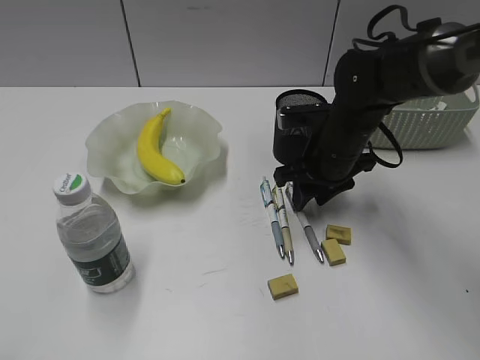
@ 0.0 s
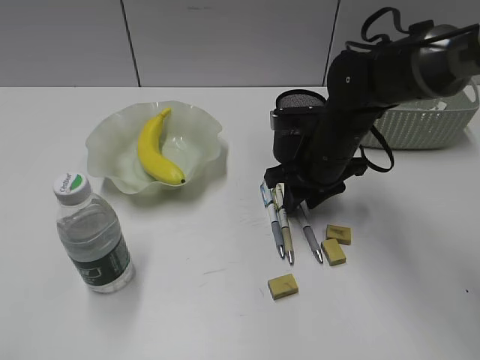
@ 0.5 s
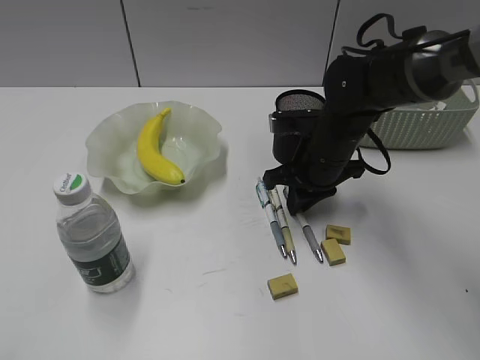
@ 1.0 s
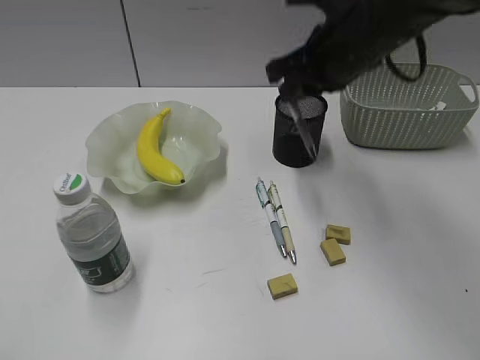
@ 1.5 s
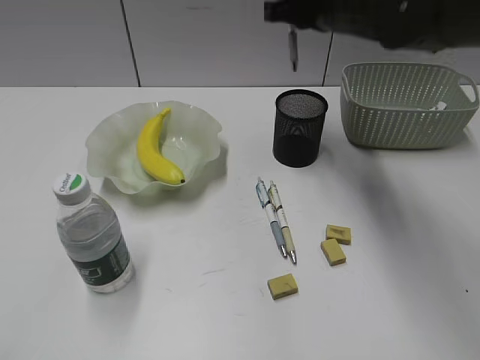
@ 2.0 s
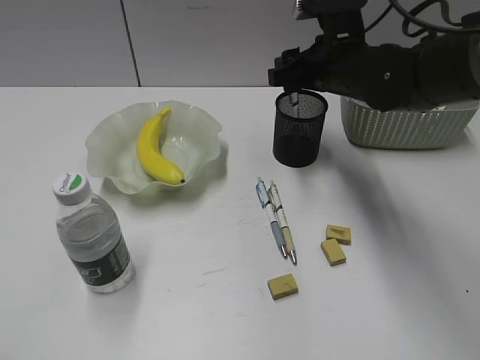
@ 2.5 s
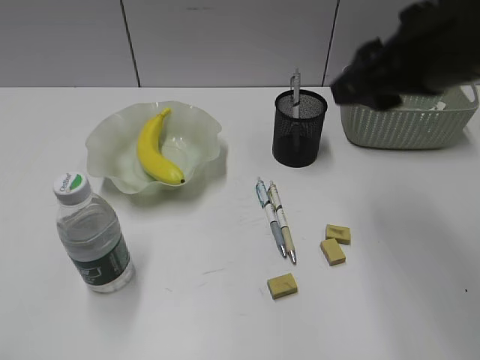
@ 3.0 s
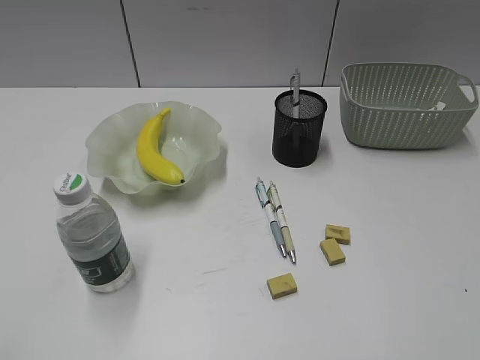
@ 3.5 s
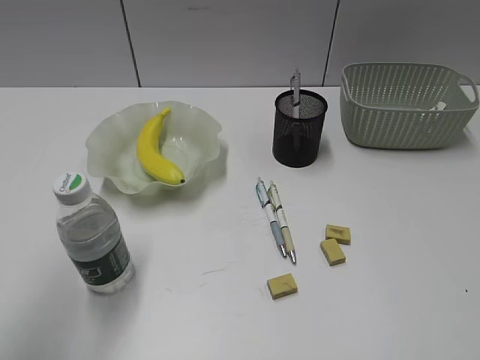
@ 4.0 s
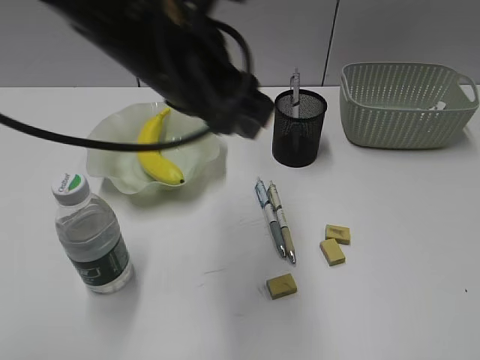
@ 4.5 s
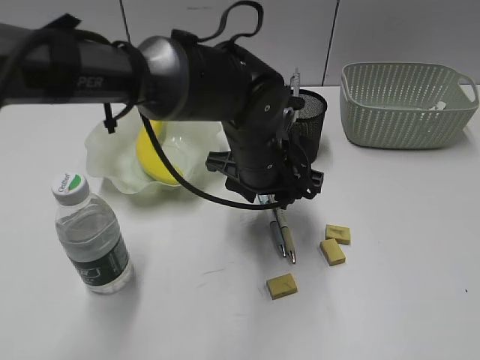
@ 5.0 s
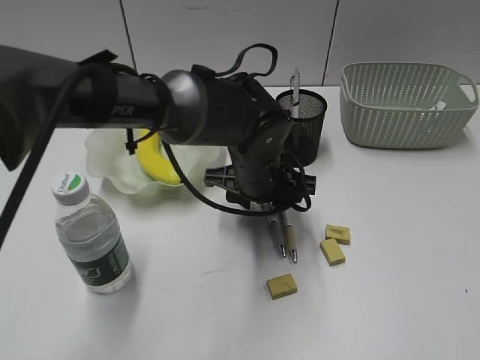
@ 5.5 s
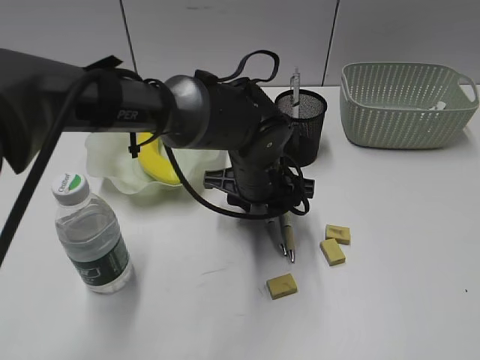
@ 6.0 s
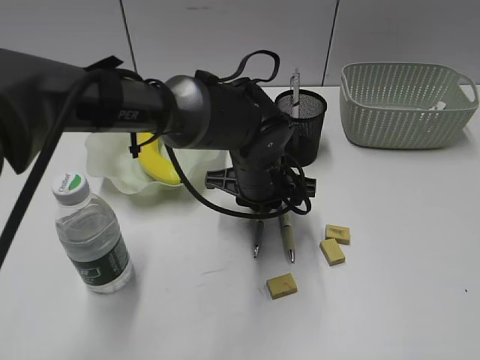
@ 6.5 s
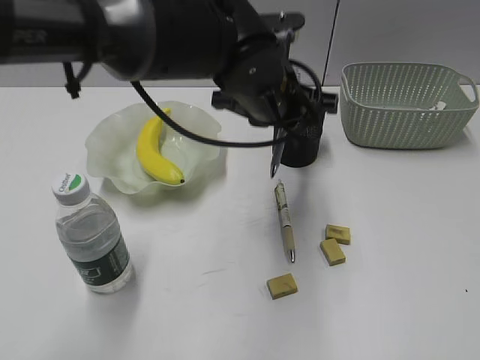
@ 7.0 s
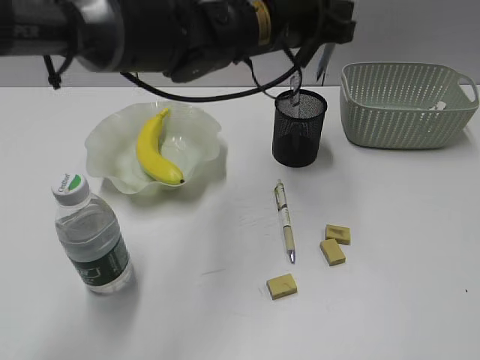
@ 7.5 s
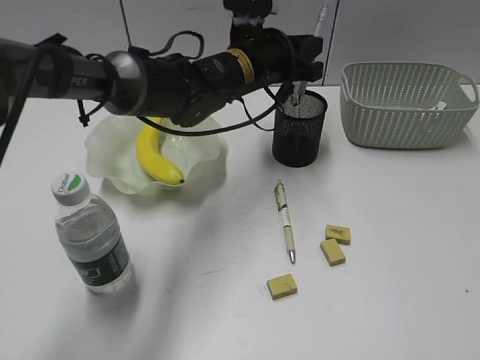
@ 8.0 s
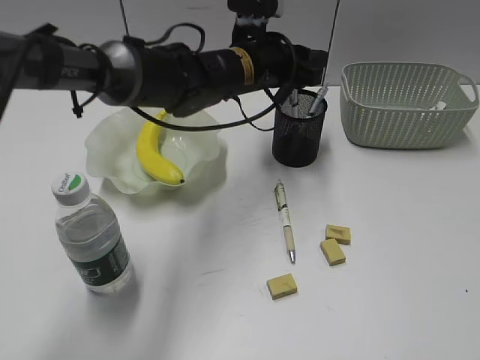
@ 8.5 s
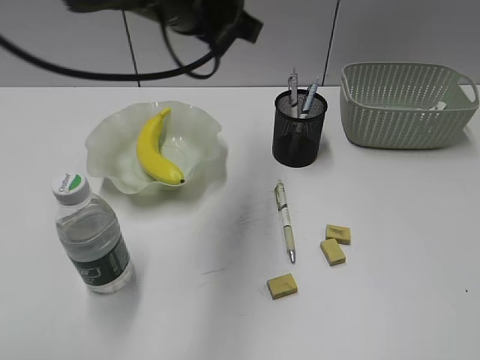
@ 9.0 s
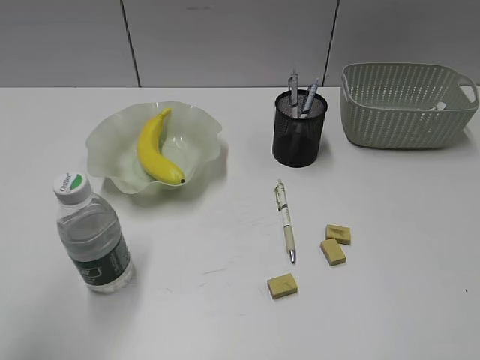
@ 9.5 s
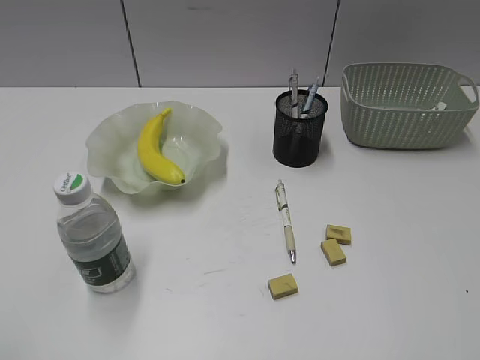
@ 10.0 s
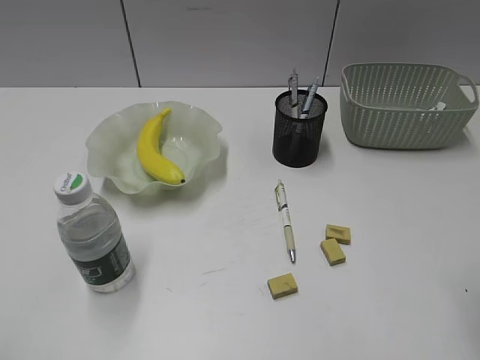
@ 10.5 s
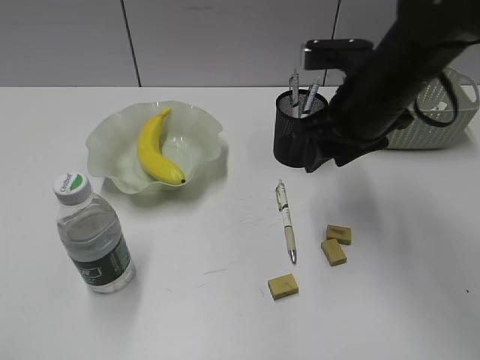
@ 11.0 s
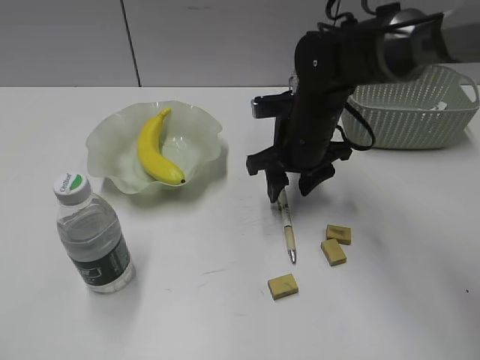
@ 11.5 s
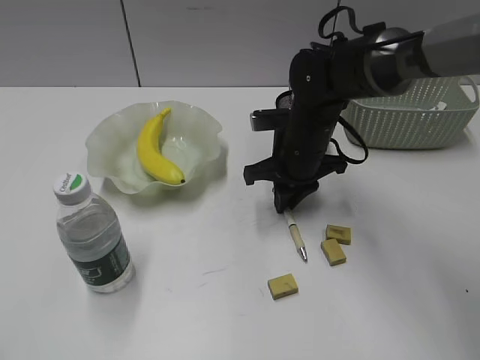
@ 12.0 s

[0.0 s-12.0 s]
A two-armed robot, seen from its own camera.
Step, 1.5 to 2.5 s: Place the gray pen in pen holder with right gripper.
Step, 3.0 to 6.5 s: Grasp the blue pen with left gripper.
Step, 7.0 to 8.0 s: Place the blue pen in pen holder with left gripper.
Step, 8.5 to 12.0 s: Grasp the yellow pen with right gripper.
0.0 to 2.0 s: The right gripper goes some 15 cm upward, and closes up.
2.0 to 4.0 s: The right gripper heads backward and to the right, covering about 50 cm, and opens up. Meanwhile the left gripper moves forward and upward, approximately 15 cm.
4.0 to 6.0 s: The left gripper heads to the right, downward and forward, covering about 40 cm.
6.0 to 8.0 s: The left gripper heads forward and upward, covering about 10 cm, and closes its fingers.
8.0 to 10.0 s: The left gripper travels backward and to the left by some 50 cm, and opens its fingers.
10.0 to 12.0 s: The right gripper moves forward, to the left and downward, some 50 cm, and opens, then closes once more.

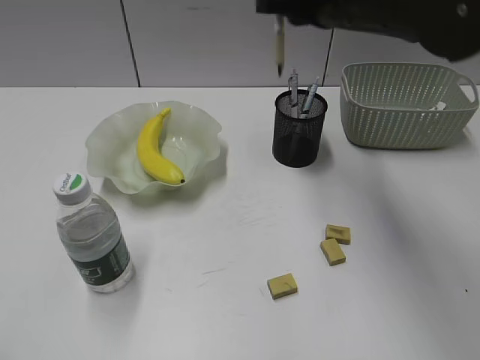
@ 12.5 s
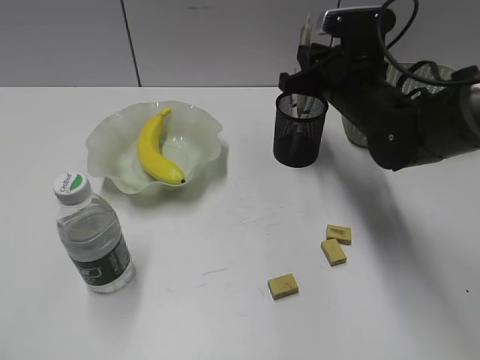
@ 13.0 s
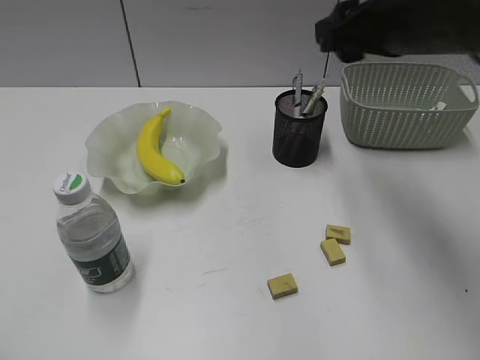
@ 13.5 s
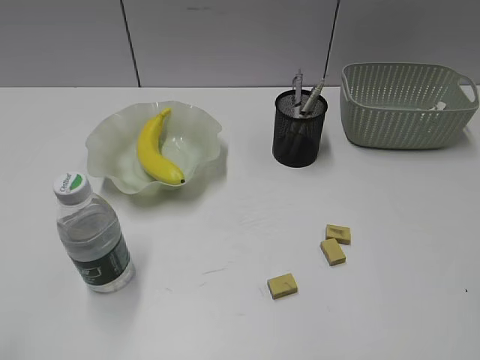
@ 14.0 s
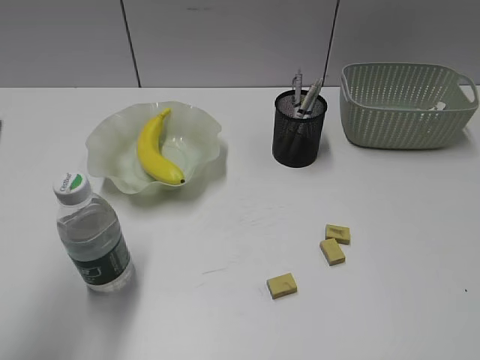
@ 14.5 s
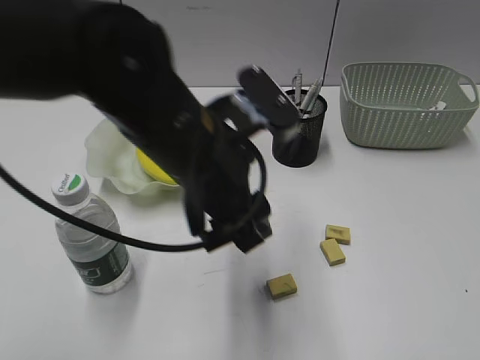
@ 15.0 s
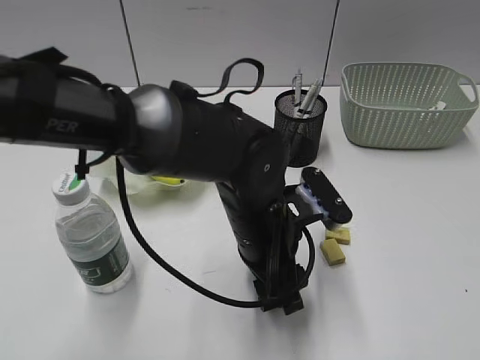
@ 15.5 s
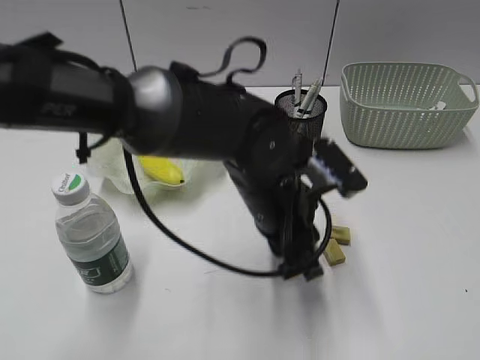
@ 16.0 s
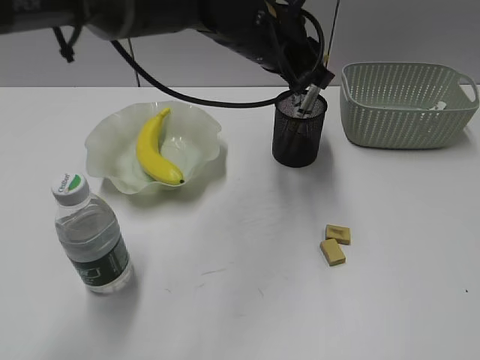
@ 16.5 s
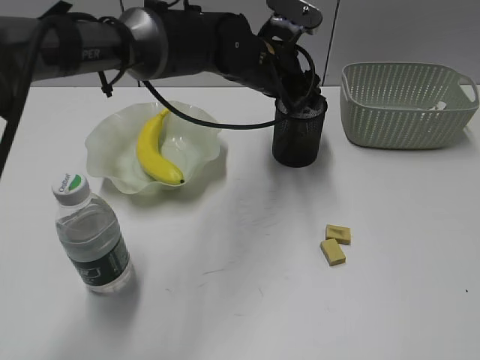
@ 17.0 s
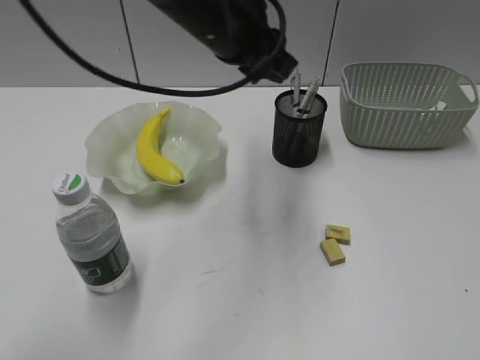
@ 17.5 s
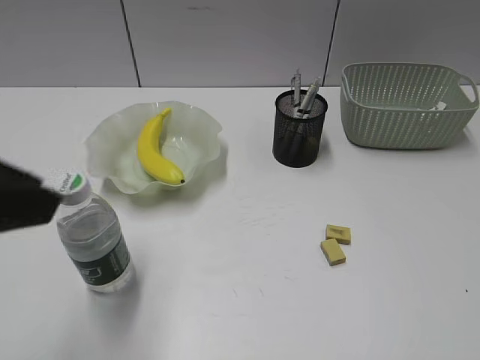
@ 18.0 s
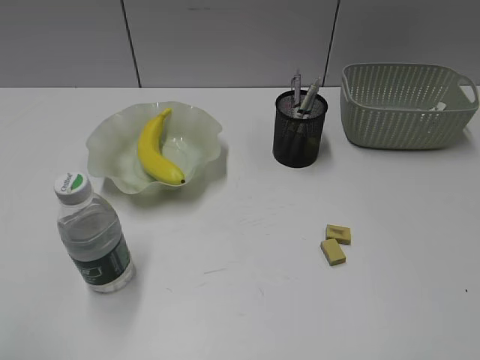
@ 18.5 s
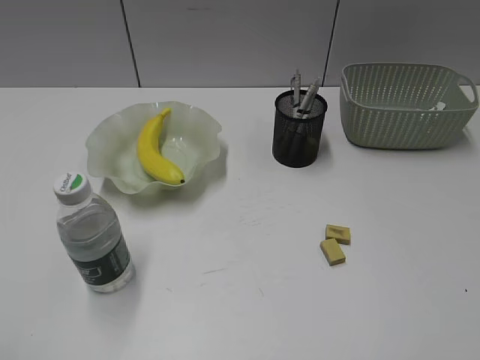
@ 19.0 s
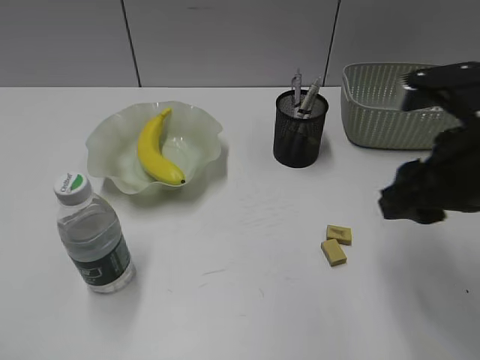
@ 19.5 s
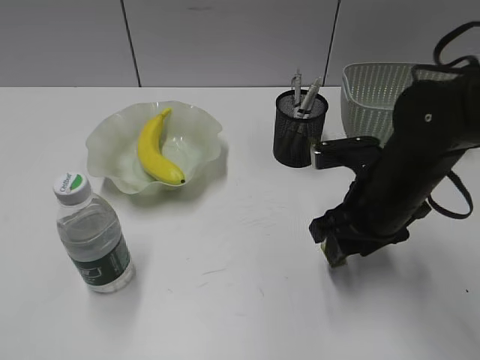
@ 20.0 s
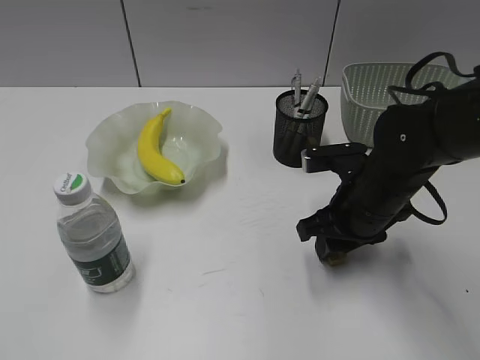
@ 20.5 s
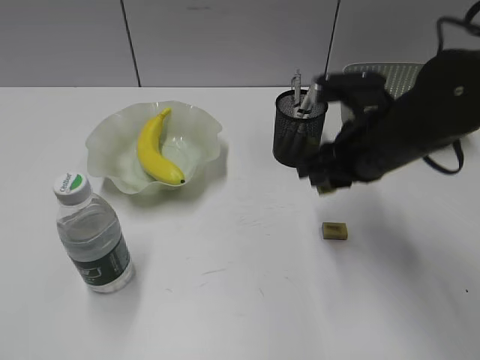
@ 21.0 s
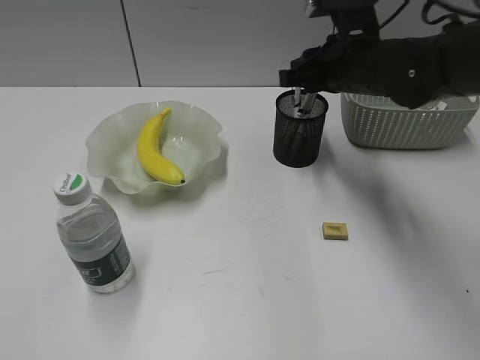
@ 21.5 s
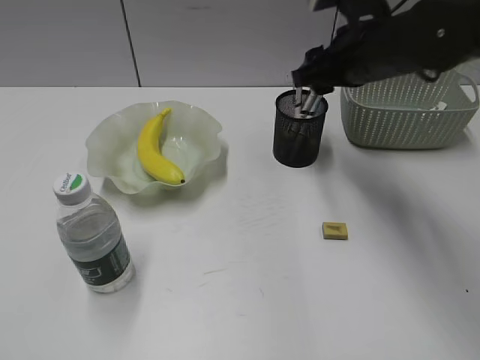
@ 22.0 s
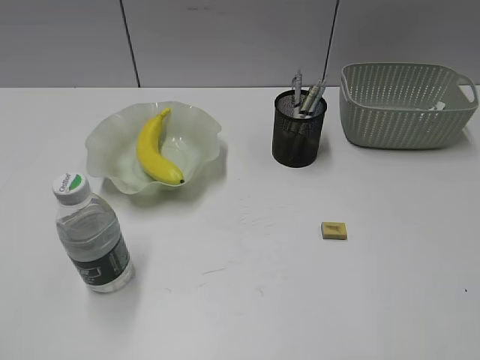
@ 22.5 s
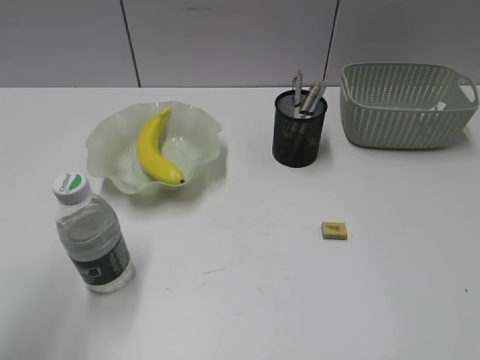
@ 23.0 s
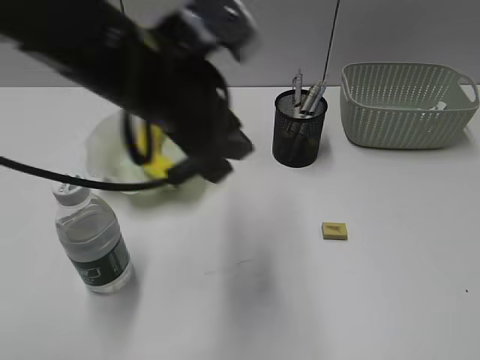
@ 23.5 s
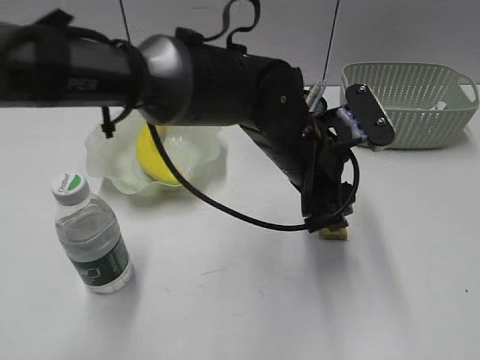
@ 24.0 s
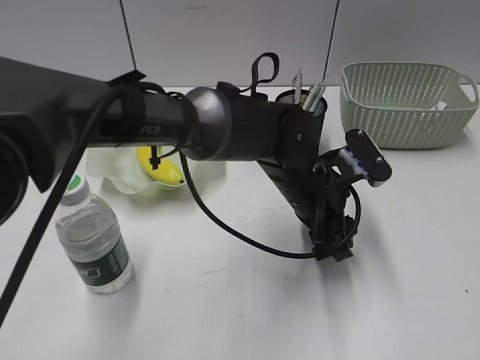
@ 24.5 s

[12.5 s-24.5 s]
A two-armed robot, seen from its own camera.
Step, 13.5 to 15.5 s: Grasp the eraser with left gripper.
Step, 16.0 to 17.0 s: Place the eraser in pen holder with left gripper.
Step, 17.5 to 20.5 s: Grasp the eraser with right gripper.
Step, 21.0 to 21.5 s: Place the eraser in pen holder with right gripper.
12.5 to 14.5 s: The left gripper moves forward and to the right, roughly 15 cm, while the right gripper is displaced backward and to the right by roughly 40 cm, and opens up.
14.5 to 16.5 s: The left gripper travels to the right and forward by roughly 35 cm, and closes up.
16.5 to 18.5 s: The left gripper moves backward and to the left, approximately 50 cm, and opens and closes again.
18.5 to 20.5 s: The right gripper goes roughly 40 cm forward, downward and to the left.
20.5 to 22.5 s: The right gripper shifts some 30 cm upward, backward and to the right, and closes and opens again.
22.5 to 24.5 s: The left gripper heads to the right, forward and downward, covering some 50 cm, and opens up; the right gripper shifts approximately 10 cm backward, and closes up.

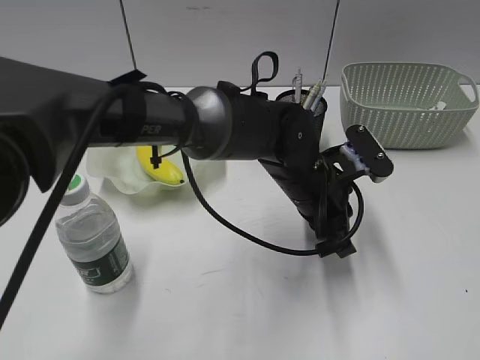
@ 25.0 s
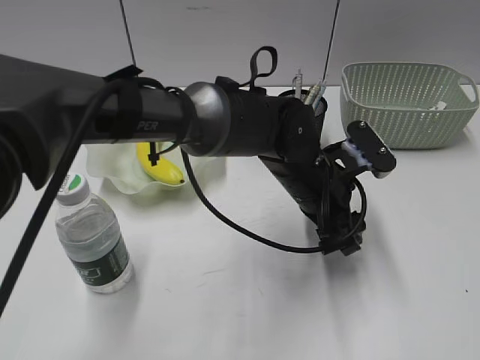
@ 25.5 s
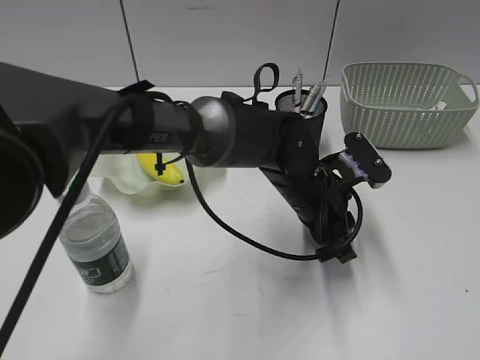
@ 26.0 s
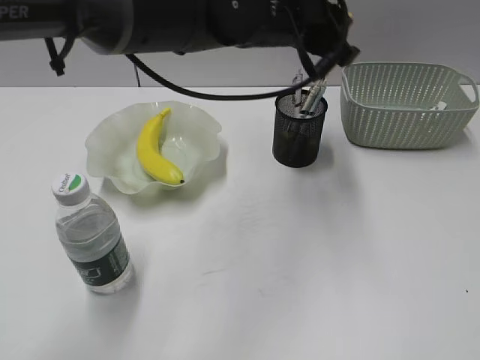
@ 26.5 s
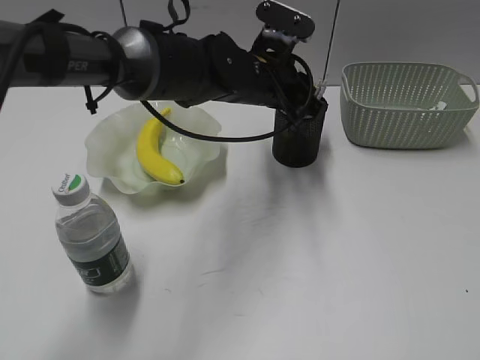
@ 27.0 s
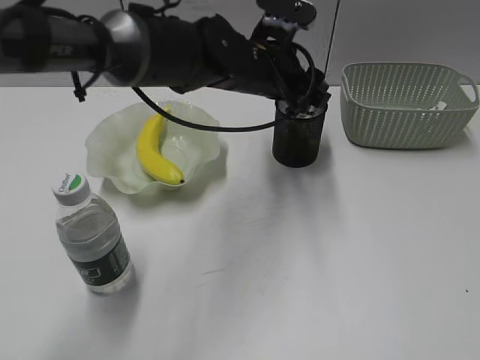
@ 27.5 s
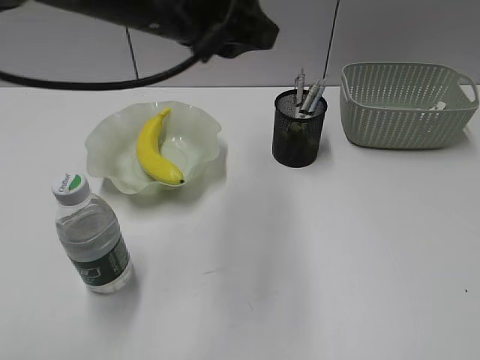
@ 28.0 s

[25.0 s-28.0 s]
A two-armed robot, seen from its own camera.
Step, 26.5 to 27.5 s: Place the eraser in pen holder with left gripper.
25.0 to 26.5 s: The left gripper heads upward and forward, covering some 15 cm, and opens and closes again.
26.5 to 28.0 s: The left gripper goes roughly 10 cm to the left and backward, and opens and closes again.
